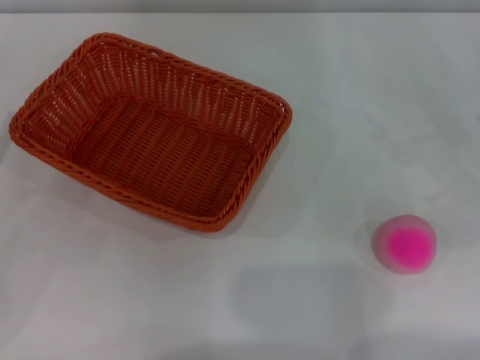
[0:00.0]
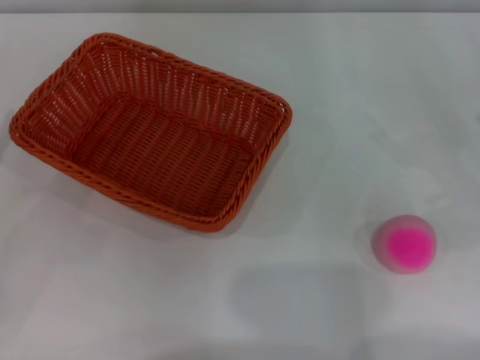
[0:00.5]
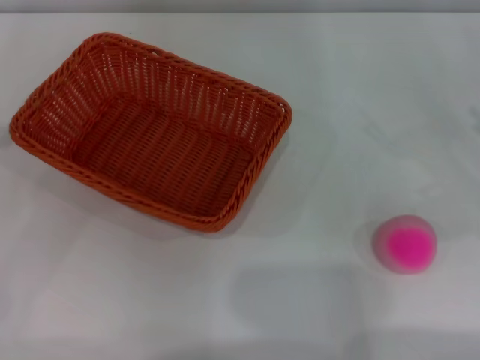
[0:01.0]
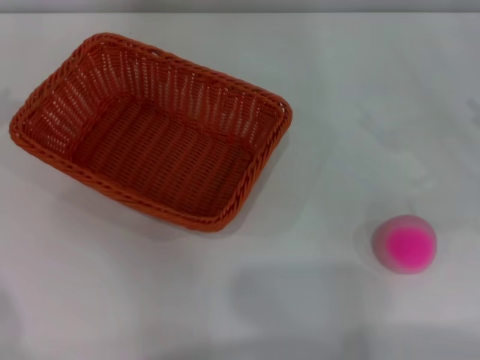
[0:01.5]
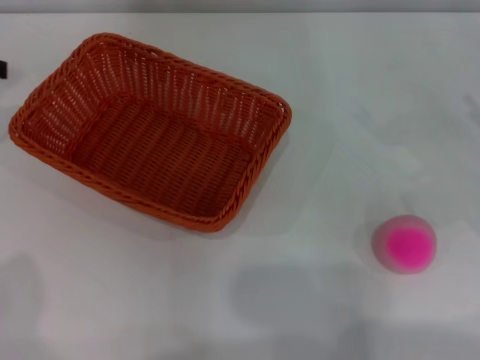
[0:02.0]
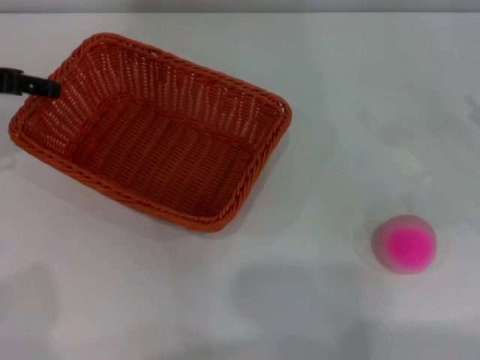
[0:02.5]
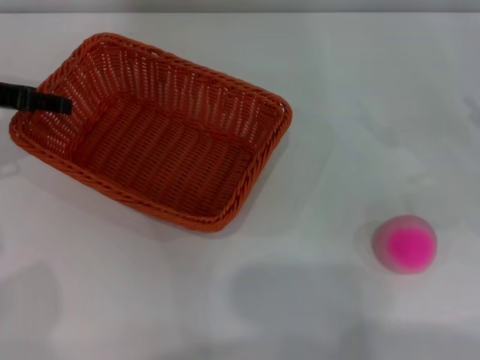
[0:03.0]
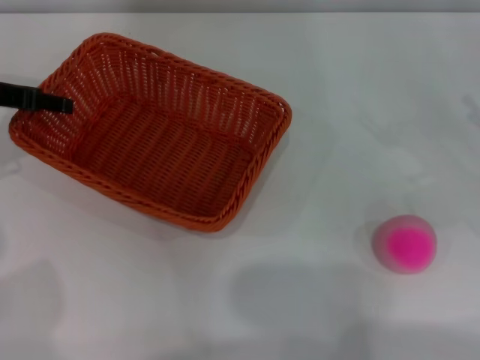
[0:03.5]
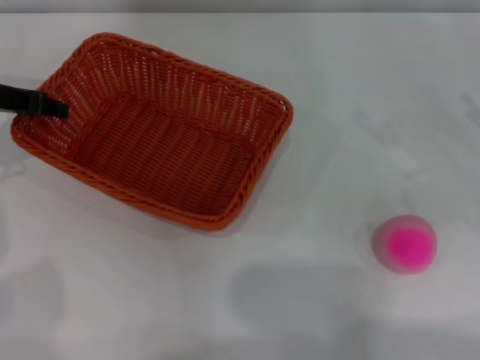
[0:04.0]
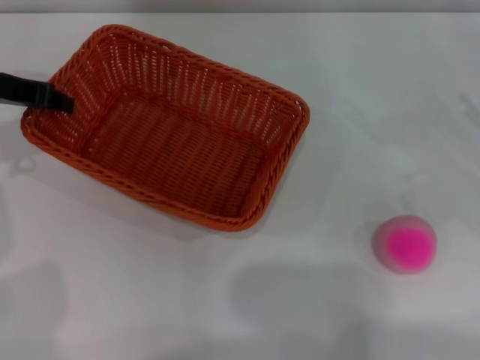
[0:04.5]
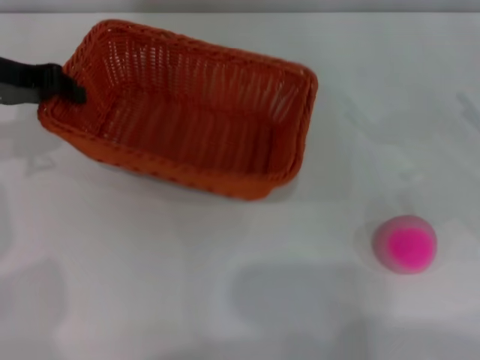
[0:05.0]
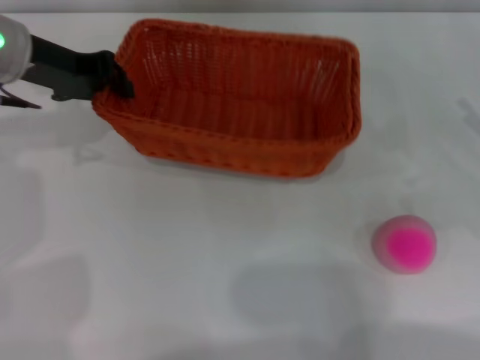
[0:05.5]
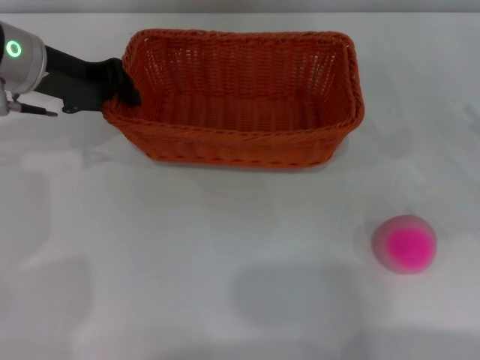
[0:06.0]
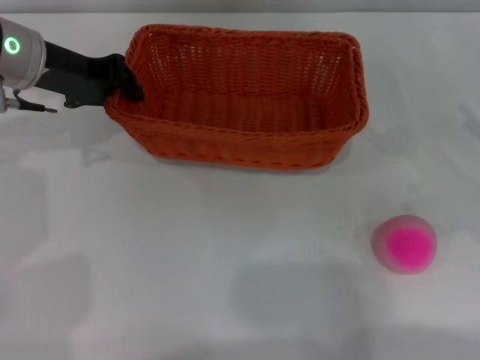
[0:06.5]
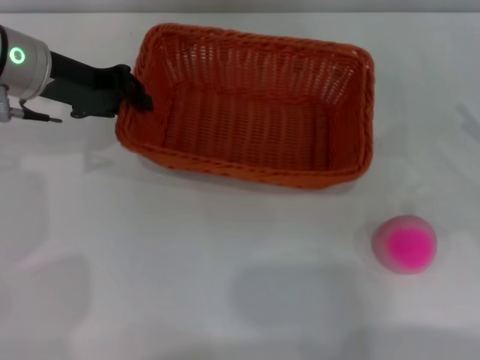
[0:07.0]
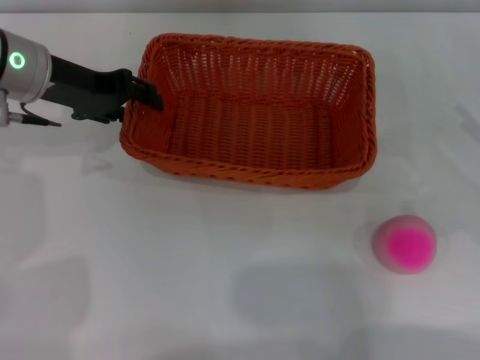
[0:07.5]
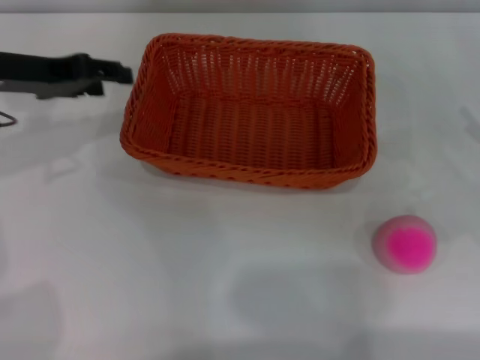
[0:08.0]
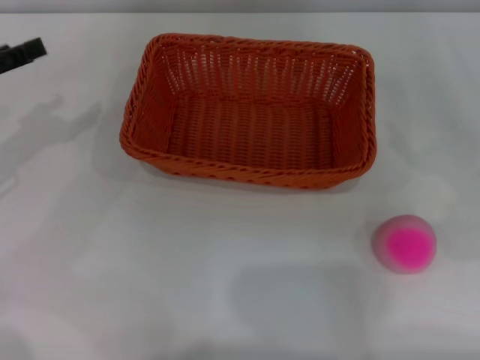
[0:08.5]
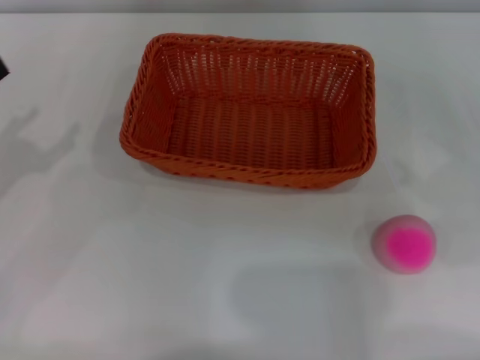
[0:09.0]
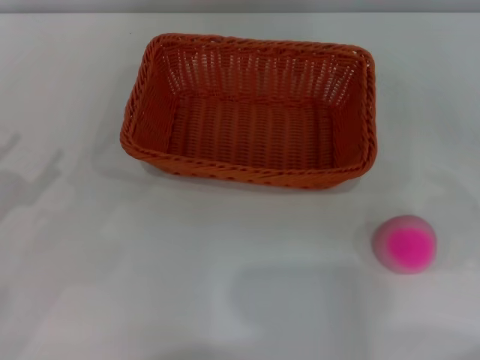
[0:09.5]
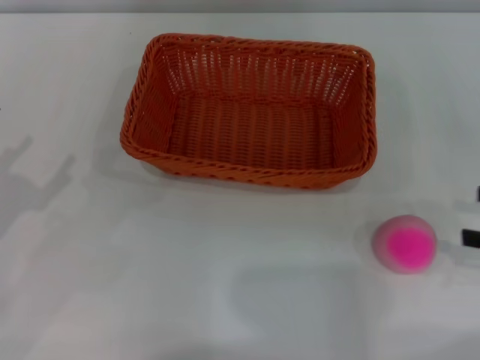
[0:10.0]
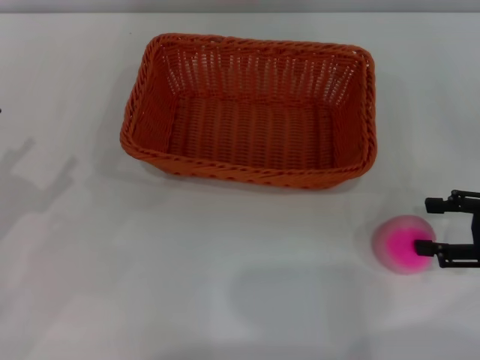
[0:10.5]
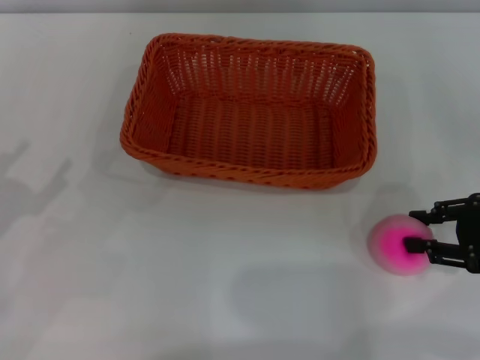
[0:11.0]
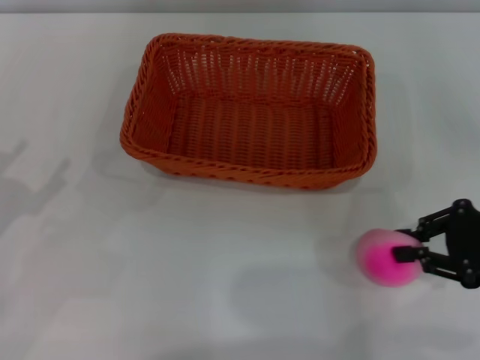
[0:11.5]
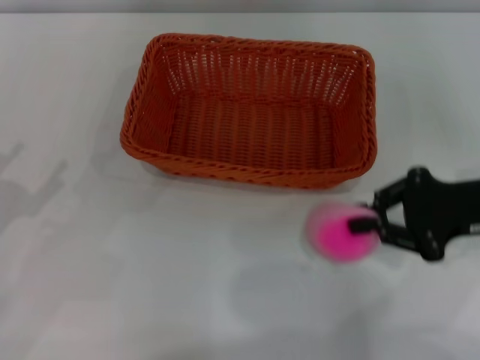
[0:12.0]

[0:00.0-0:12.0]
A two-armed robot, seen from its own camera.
Step, 0:00.0 to 0:05.5: Pick up the light basket with the left gripper.
Step, 0:06.0 to 0:08.0: Place the light basket in the center of view with the right gripper.
0:02.0 to 0:04.0: The left gripper heads downward, covering roughly 10 cm, and closes up.
0:04.0 to 0:06.0: The left gripper travels to the right by some 10 cm.
0:06.0 to 0:08.0: The left gripper shifts by roughly 5 cm, and opens up.
0:08.0 to 0:10.0: The left gripper shifts some 20 cm backward, to the left and downward.
0:10.0 to 0:12.0: The right gripper is displaced to the left and forward by approximately 10 cm, and closes.

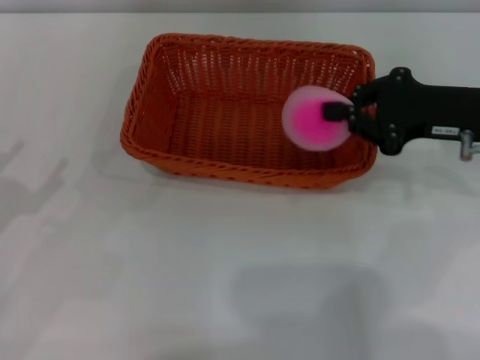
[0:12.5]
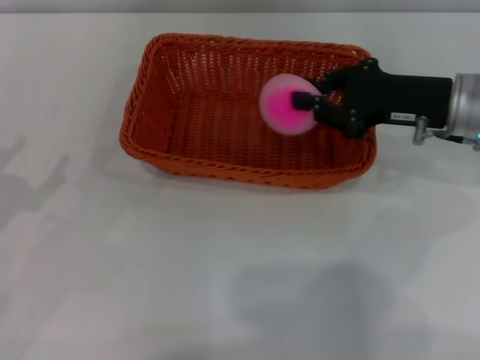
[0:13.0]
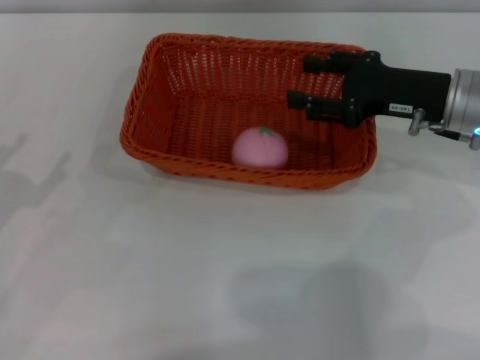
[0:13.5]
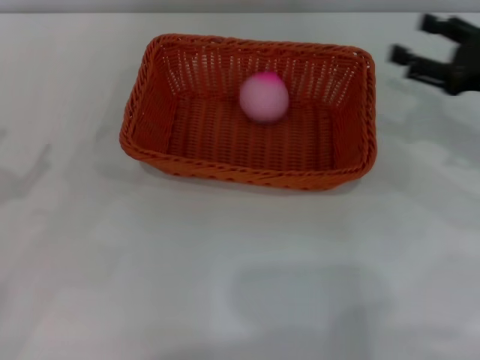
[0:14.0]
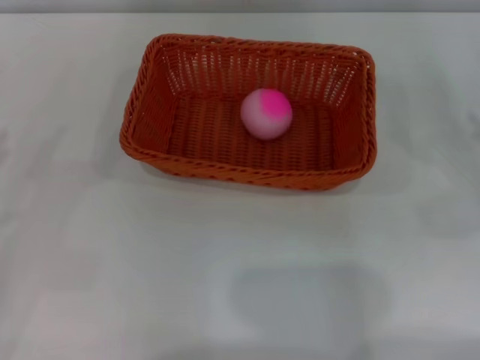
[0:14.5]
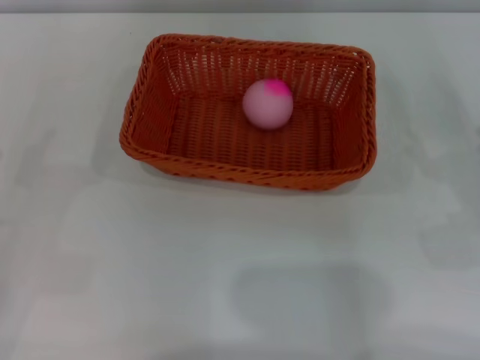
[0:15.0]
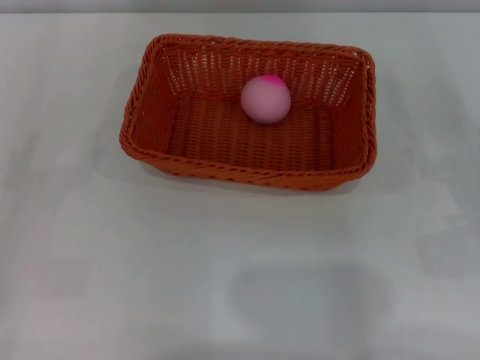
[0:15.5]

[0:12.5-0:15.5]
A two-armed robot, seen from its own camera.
0:12.5 to 0:14.0: The right gripper heads to the right, covering roughly 5 cm, and opens.
0:14.0 to 0:15.5: The right gripper is displaced backward and downward by about 15 cm.
